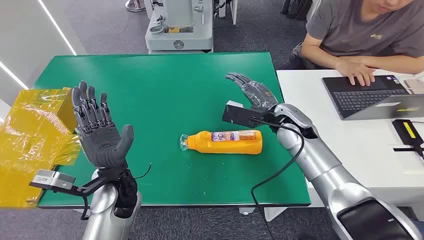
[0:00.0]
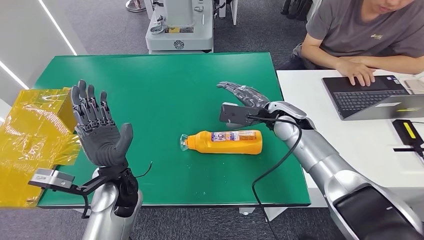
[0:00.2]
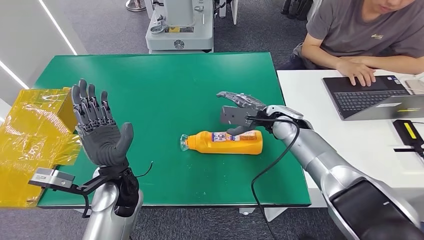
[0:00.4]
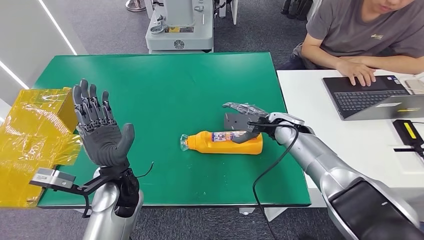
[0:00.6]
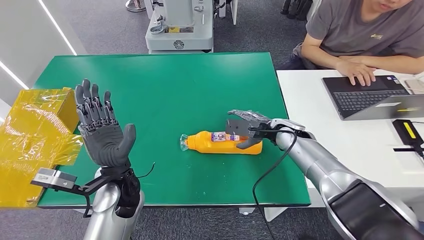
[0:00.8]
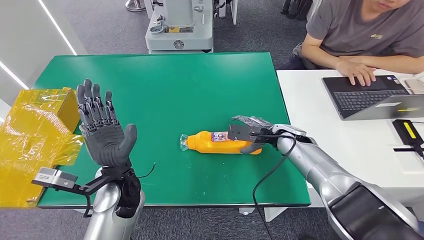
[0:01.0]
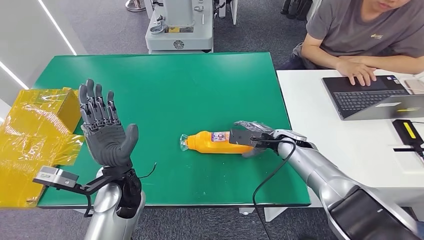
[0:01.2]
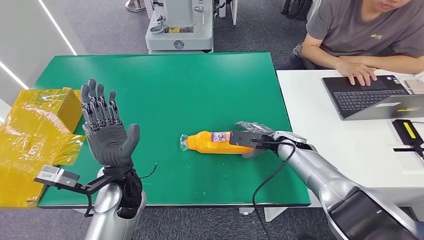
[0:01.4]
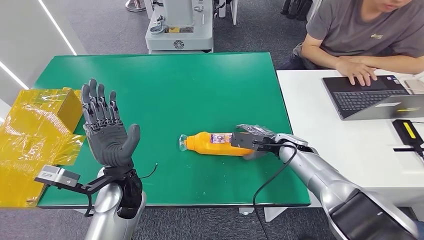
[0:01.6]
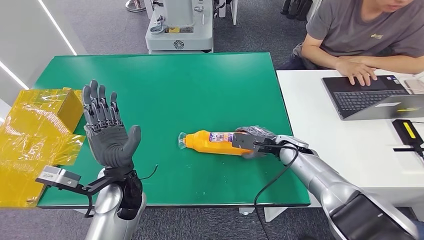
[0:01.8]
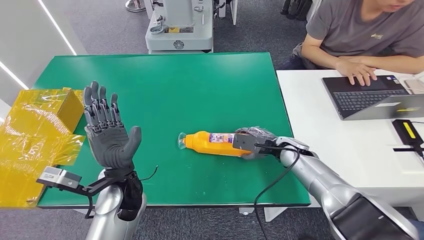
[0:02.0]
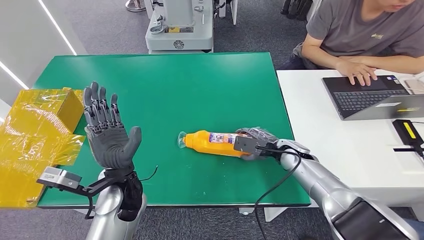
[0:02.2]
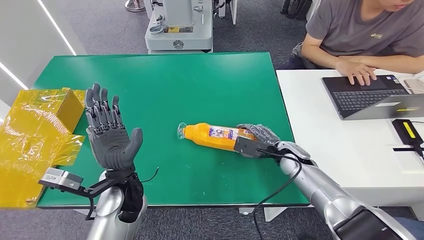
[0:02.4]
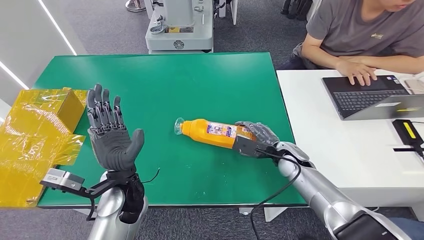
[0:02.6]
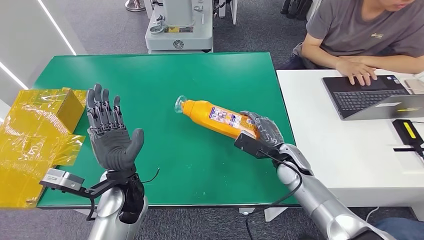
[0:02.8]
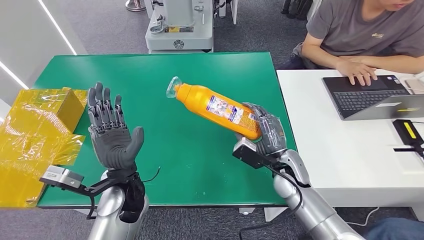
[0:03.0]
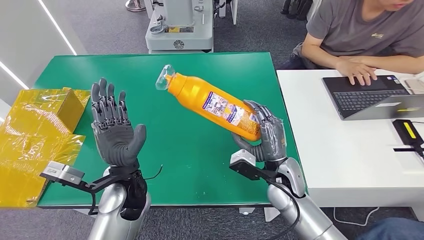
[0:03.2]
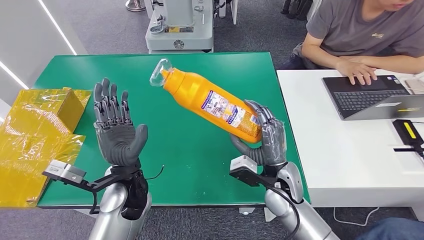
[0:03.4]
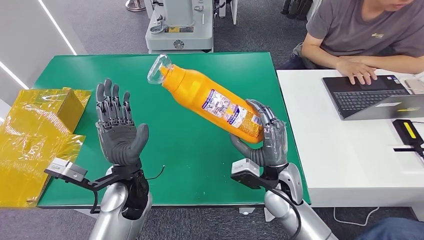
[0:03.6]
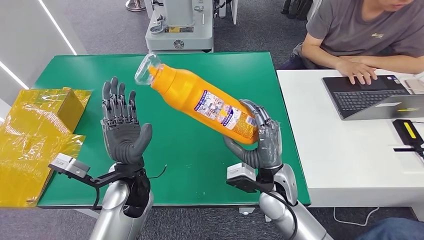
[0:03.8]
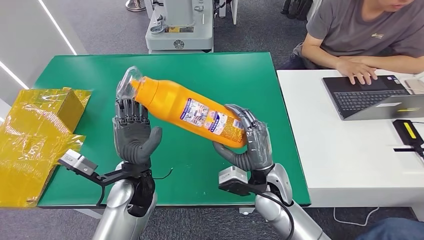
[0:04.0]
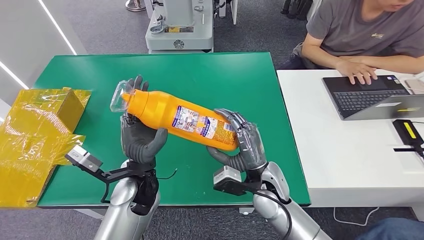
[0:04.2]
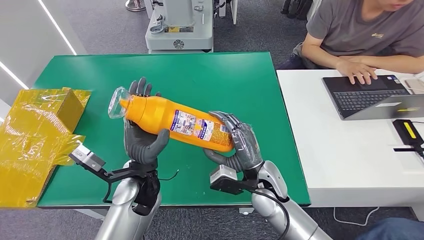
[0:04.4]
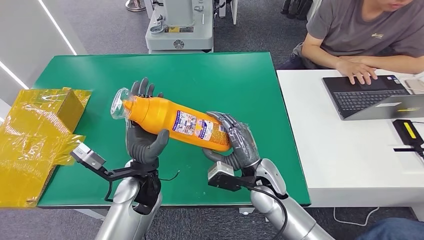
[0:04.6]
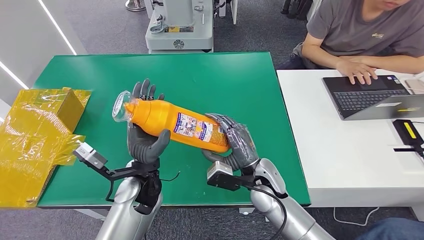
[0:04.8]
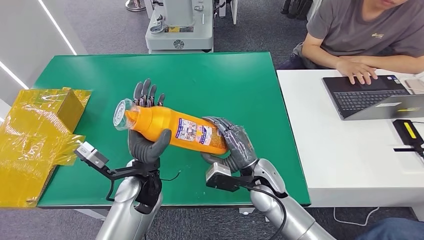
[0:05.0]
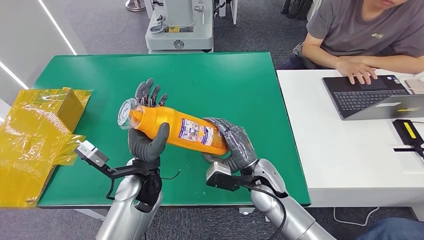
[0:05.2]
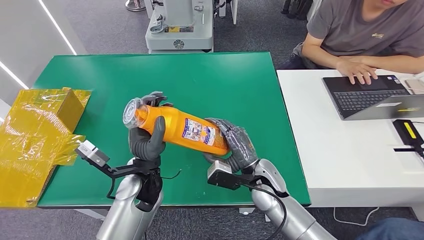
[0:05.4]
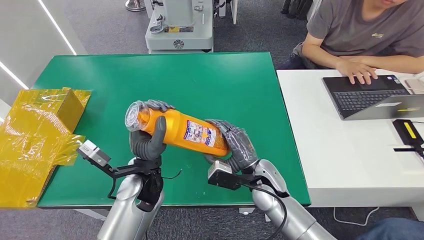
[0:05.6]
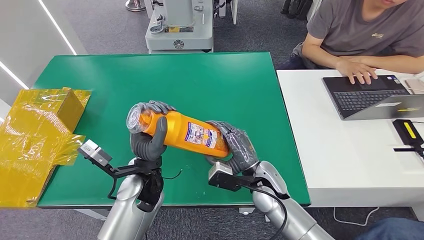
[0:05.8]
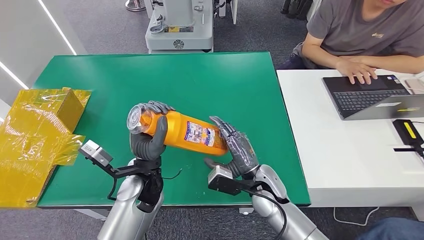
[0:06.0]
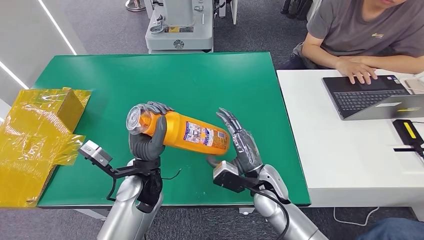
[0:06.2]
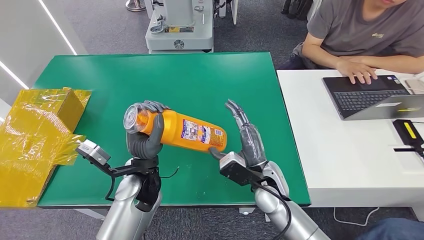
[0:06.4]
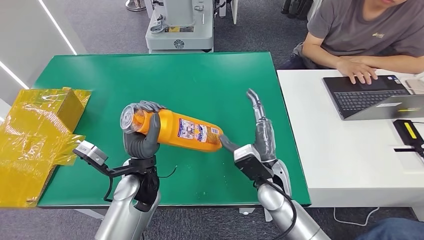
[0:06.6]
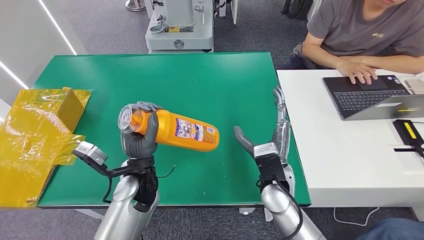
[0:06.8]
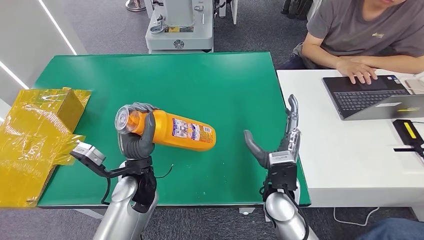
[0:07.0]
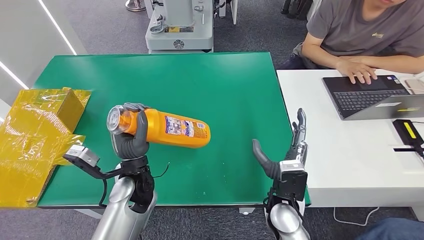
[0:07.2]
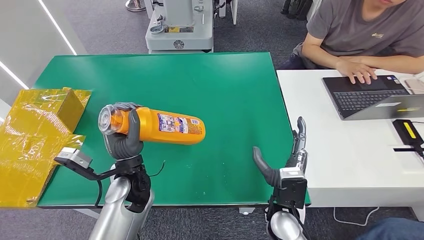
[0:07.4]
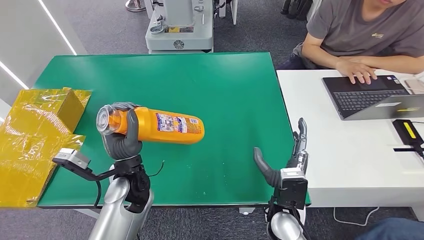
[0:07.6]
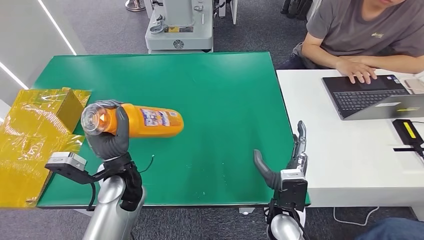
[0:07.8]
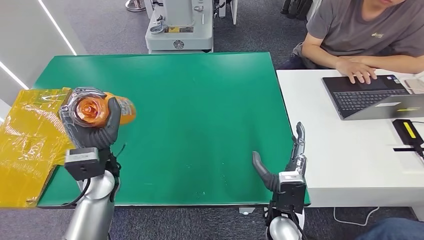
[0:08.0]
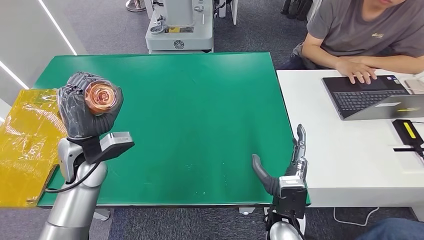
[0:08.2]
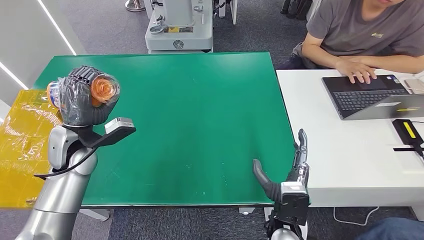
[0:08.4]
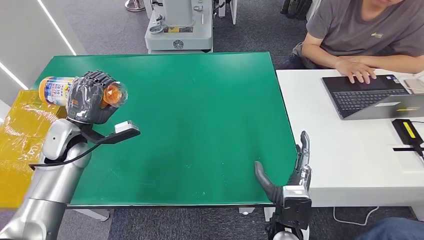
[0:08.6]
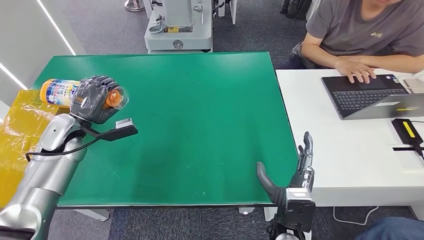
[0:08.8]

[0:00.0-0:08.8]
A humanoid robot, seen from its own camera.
Step, 0:00.0 to 0:03.8: Pick up the bottle from the table.
Step, 0:04.2 to 0:08.8: Turn the bottle to the front side.
0:01.4 to 0:03.0: The right hand shifts approximately 10 cm backward.
0:03.0 to 0:04.4: The right hand heads to the left, covering some 5 cm.
0:04.4 to 0:05.8: The hands stay close to where they were, moving slightly.
0:05.8 to 0:07.4: The right hand travels backward by roughly 5 cm.
0:07.4 to 0:08.8: The left hand goes approximately 25 cm to the left and forward.
